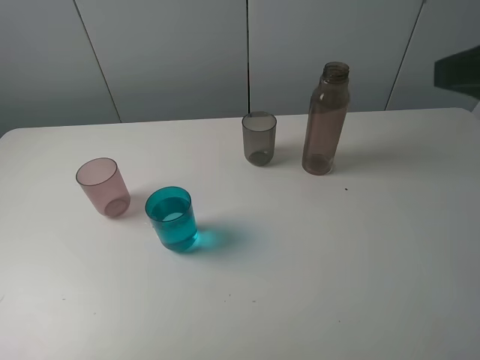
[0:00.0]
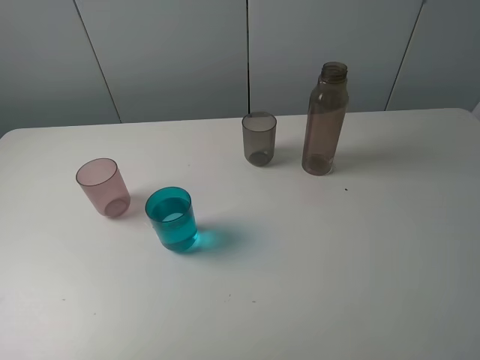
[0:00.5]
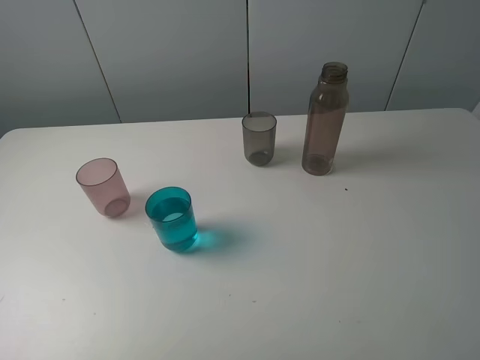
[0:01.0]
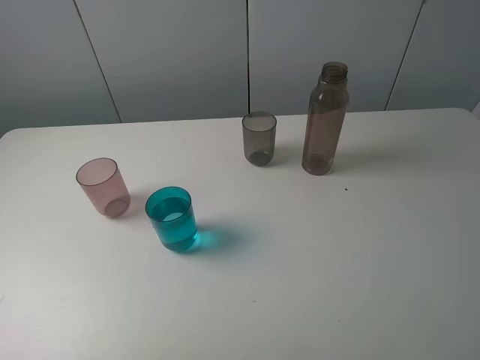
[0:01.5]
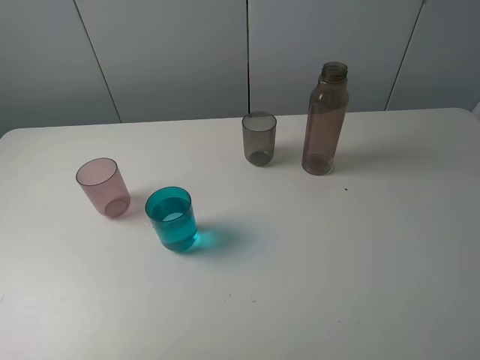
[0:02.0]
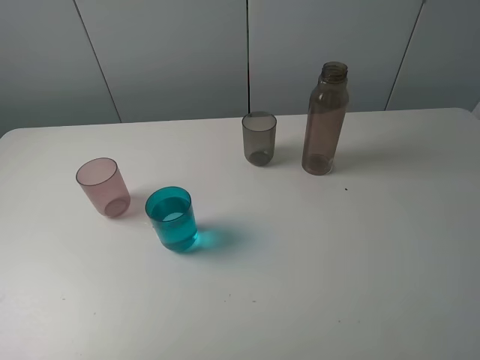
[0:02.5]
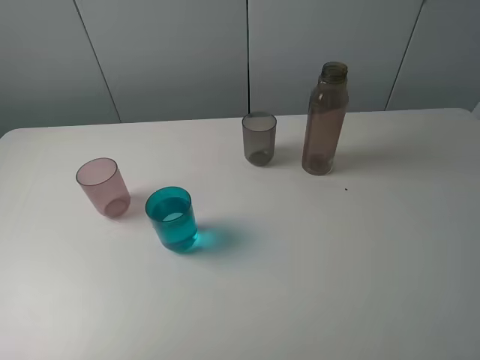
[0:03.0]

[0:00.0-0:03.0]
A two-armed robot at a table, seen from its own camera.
Task of the whole recording: pick up the bottle filled with water and pour water into the middle cup of the three cups.
0:00.0 to 0:01.5: The right gripper is displaced backward by about 10 cm.
0:01.5 to 0:03.0: Both grippers stay put.
